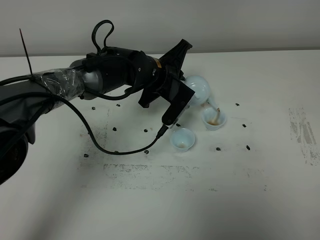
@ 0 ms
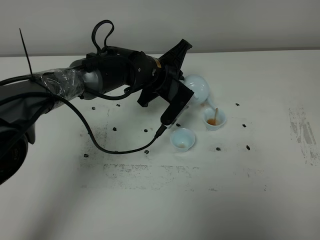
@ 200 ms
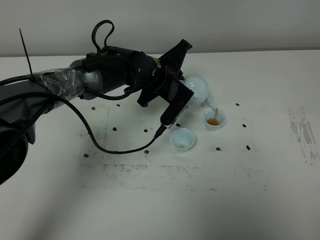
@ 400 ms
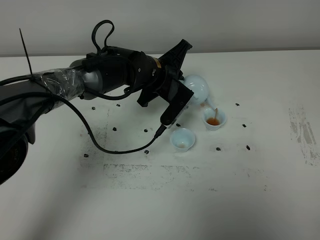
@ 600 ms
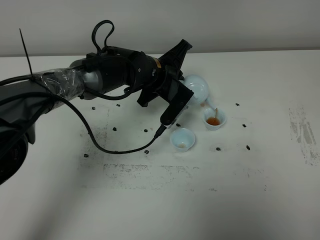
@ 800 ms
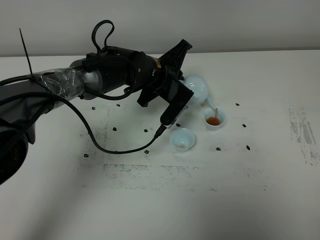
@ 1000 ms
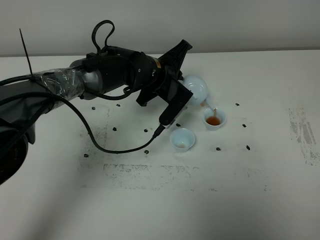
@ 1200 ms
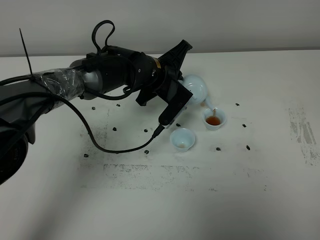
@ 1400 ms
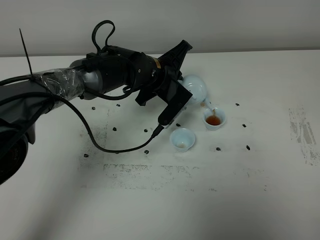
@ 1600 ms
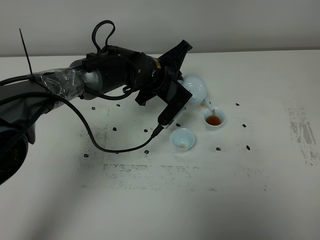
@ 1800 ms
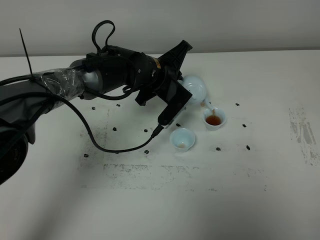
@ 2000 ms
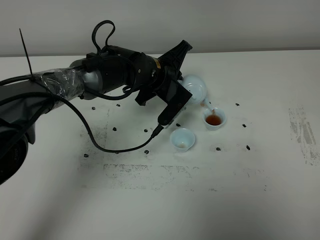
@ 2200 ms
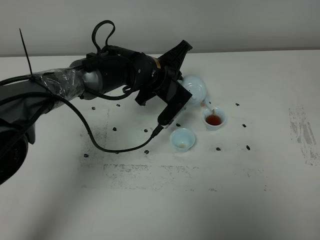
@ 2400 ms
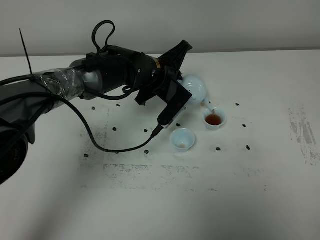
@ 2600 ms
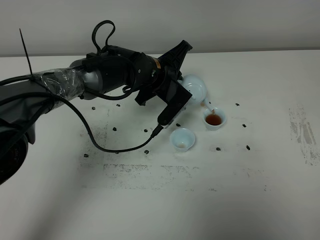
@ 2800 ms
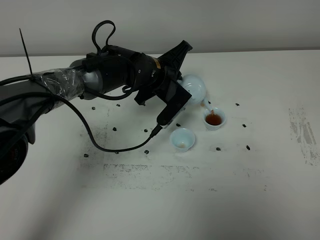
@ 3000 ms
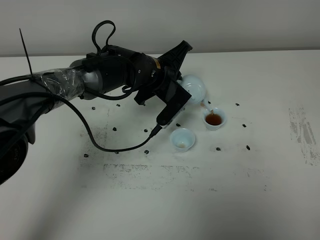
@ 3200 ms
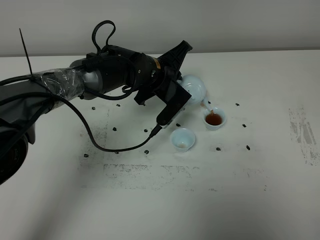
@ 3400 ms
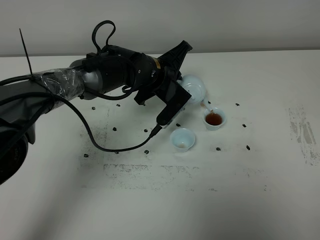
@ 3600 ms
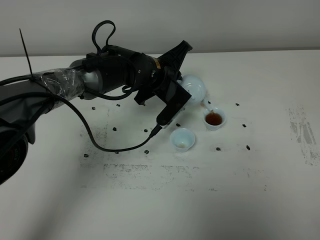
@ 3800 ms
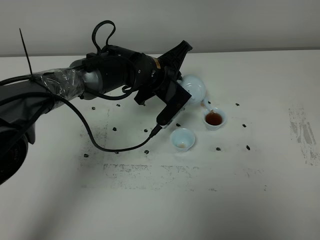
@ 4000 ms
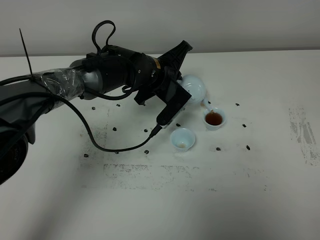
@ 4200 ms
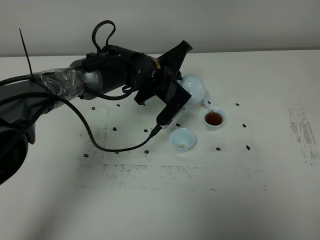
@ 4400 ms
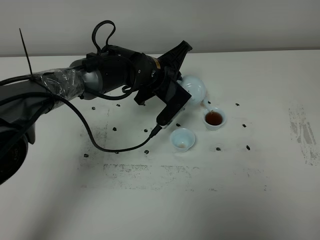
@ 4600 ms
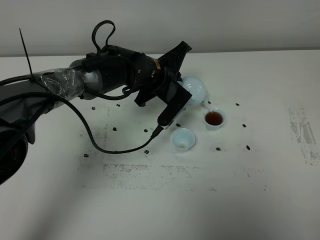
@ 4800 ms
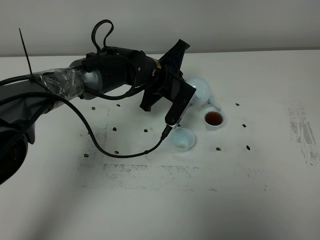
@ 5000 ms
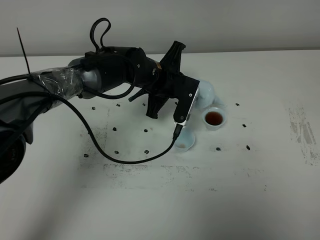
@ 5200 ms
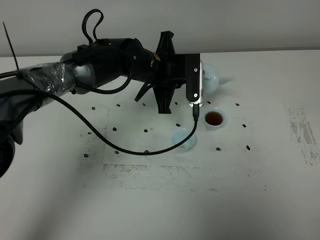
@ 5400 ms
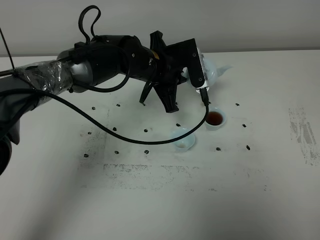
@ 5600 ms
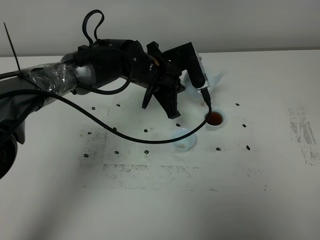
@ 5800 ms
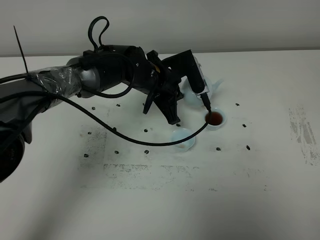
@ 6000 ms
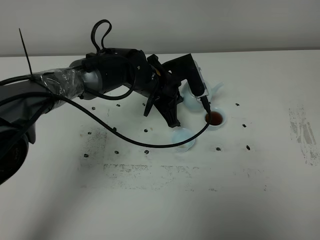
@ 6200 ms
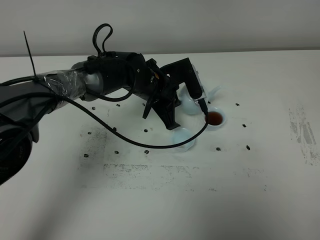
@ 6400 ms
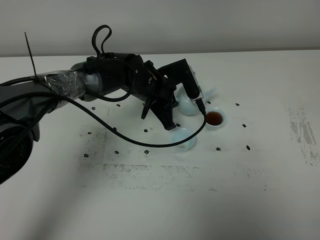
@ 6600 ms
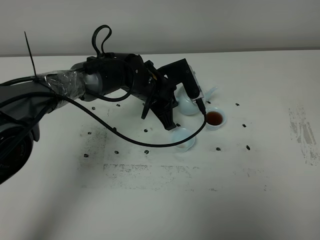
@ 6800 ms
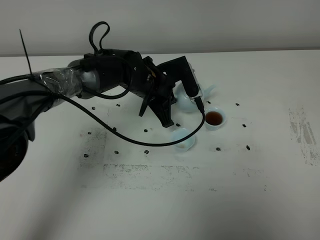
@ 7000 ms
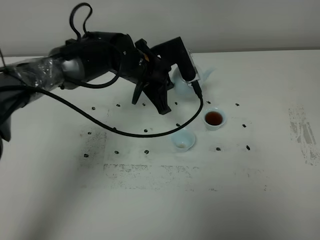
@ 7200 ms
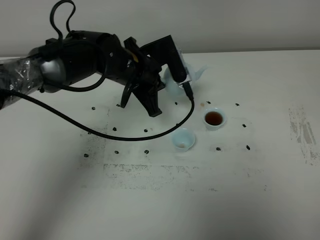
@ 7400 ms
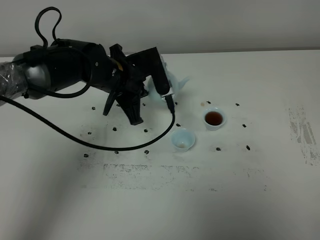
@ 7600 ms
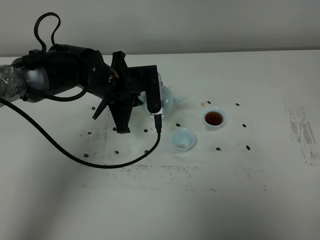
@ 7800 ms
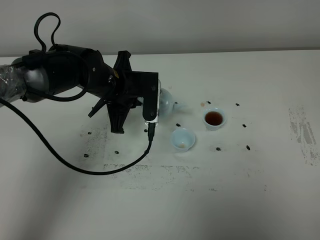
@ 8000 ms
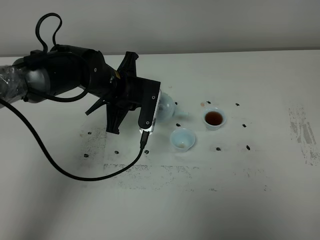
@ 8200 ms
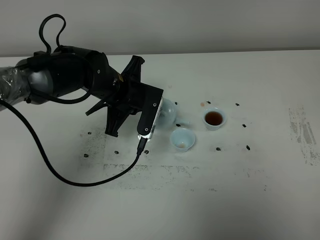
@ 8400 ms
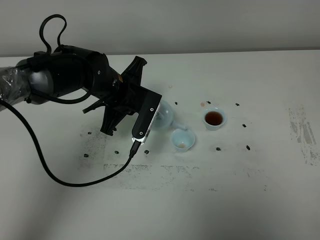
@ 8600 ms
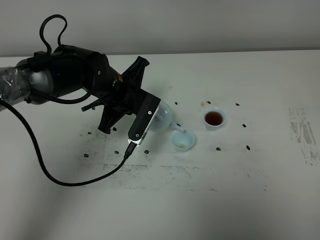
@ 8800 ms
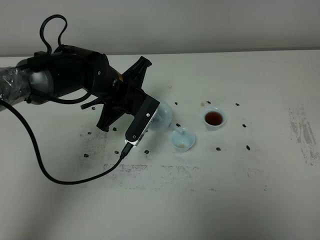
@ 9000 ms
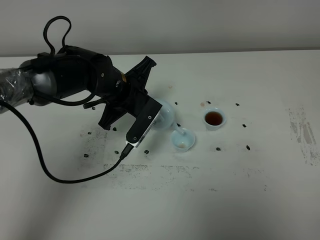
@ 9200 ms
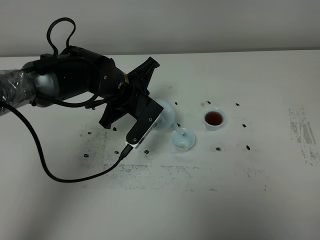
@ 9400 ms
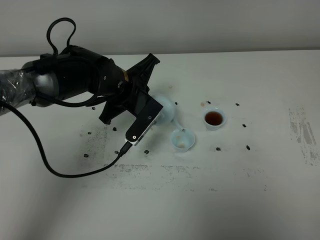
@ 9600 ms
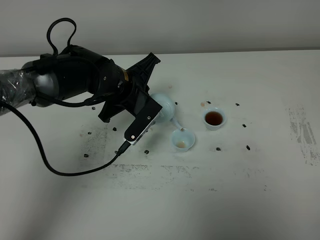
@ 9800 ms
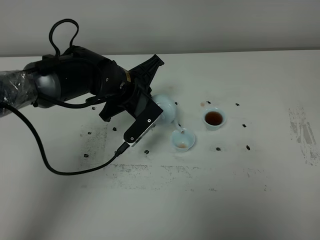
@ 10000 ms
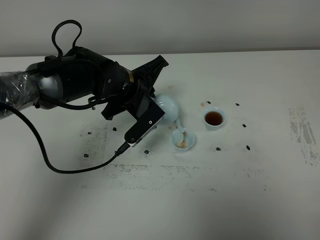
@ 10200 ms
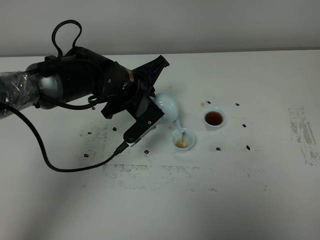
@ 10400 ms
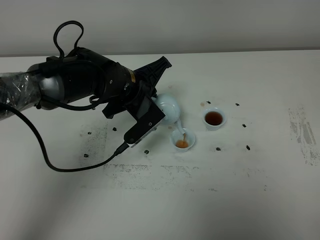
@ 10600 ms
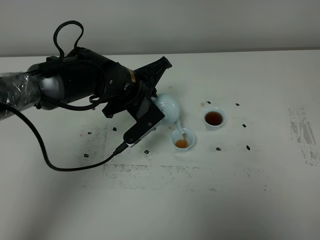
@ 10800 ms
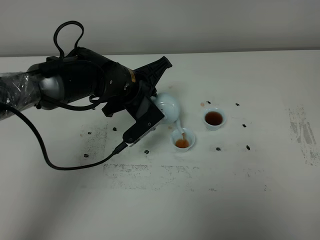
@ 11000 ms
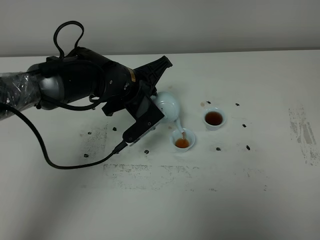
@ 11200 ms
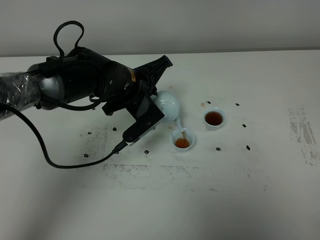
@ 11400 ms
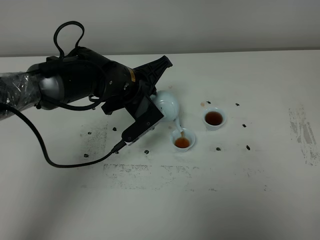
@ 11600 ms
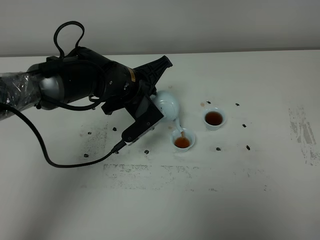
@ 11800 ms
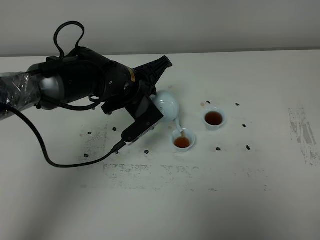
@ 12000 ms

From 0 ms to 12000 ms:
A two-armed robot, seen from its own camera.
Task of the whole recording: grasp the blue porcelain teapot and pour the tea into the two blue porcelain teacups one by one, put the blue porcelain teapot back in its original place.
Step, from 0 ms to 5200 ms: Pour tea into the teacup with the left gripper.
From 0 ms to 1600 ms: Neither gripper changes place.
From 1600 ms to 4400 ms: Both grippers stay put.
From 6000 ms to 7600 ms: The left gripper moves to the left, some 5 cm.
From 9000 ms to 10400 ms: The grippers make only small movements.
From 10400 ms to 12000 ms: There are only small adjustments of the grippers.

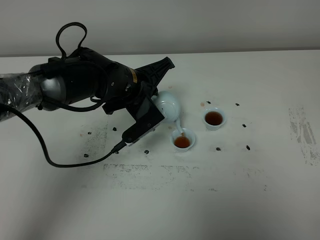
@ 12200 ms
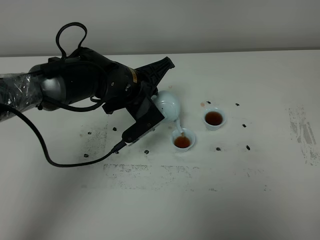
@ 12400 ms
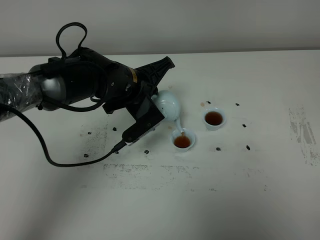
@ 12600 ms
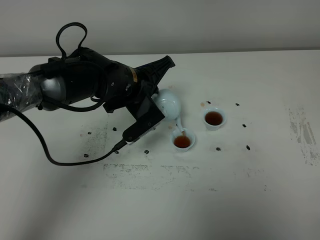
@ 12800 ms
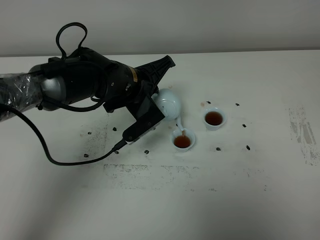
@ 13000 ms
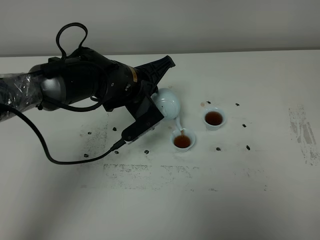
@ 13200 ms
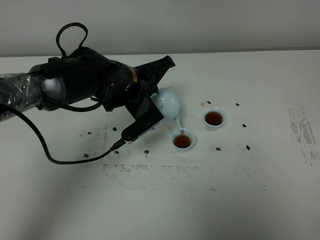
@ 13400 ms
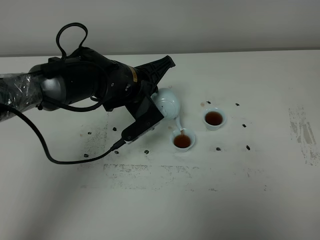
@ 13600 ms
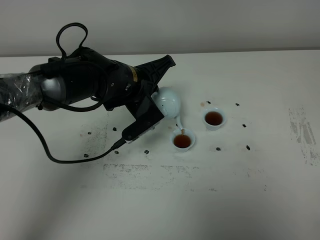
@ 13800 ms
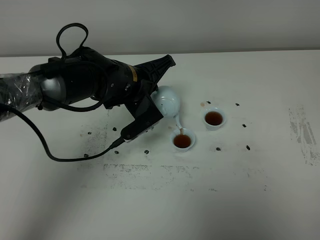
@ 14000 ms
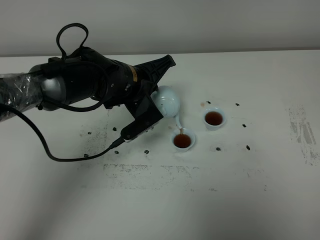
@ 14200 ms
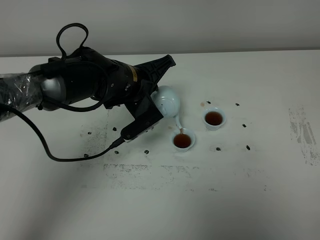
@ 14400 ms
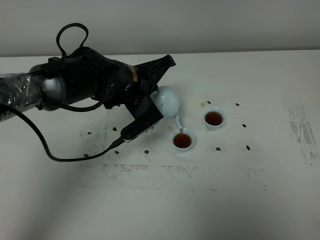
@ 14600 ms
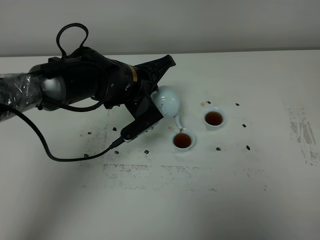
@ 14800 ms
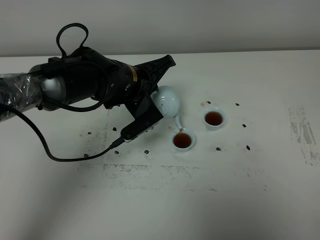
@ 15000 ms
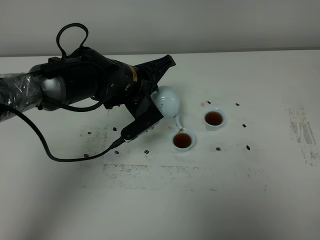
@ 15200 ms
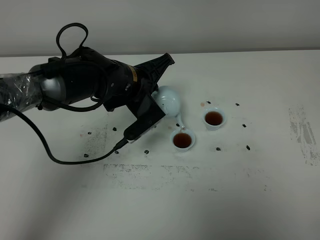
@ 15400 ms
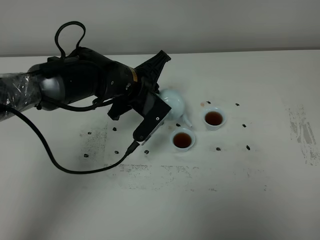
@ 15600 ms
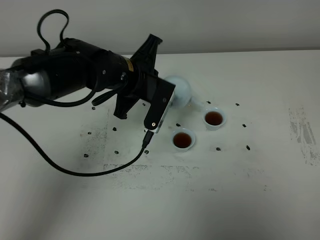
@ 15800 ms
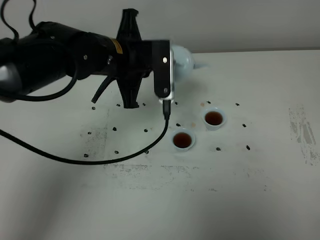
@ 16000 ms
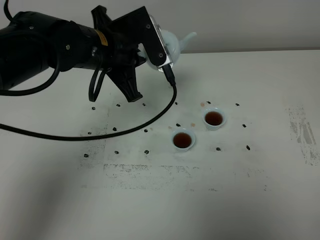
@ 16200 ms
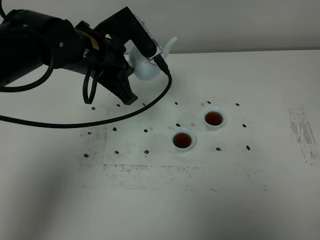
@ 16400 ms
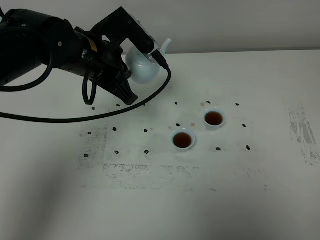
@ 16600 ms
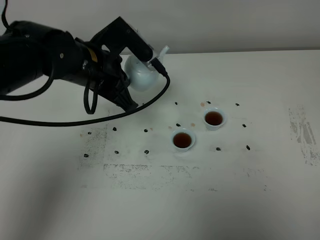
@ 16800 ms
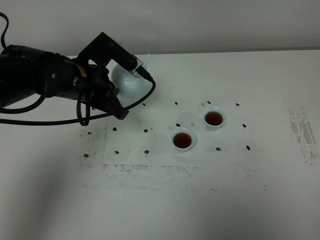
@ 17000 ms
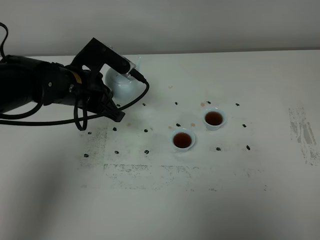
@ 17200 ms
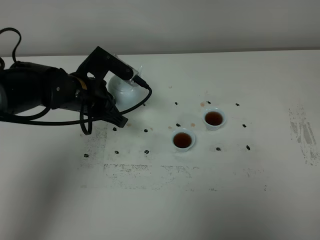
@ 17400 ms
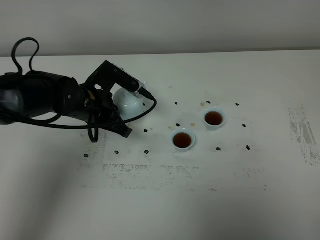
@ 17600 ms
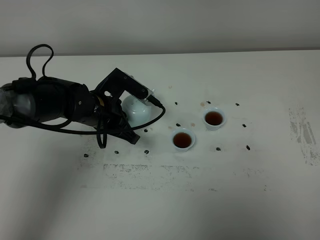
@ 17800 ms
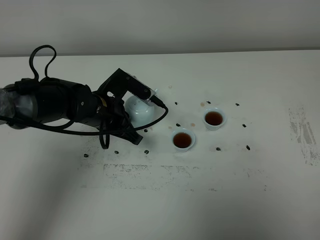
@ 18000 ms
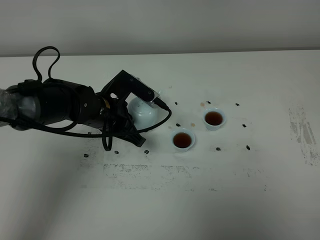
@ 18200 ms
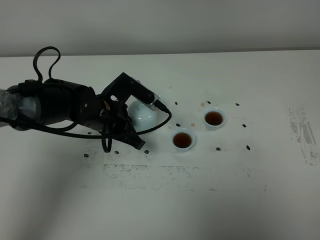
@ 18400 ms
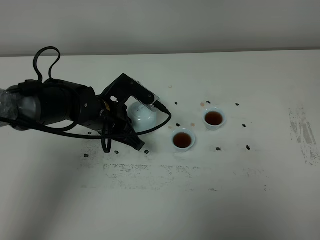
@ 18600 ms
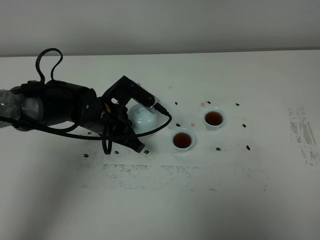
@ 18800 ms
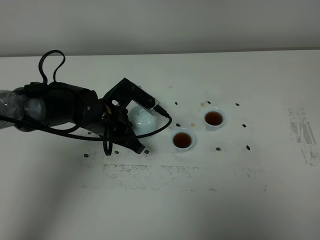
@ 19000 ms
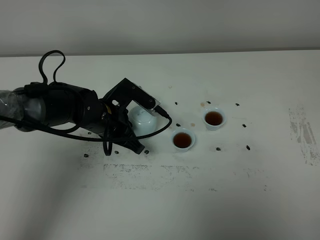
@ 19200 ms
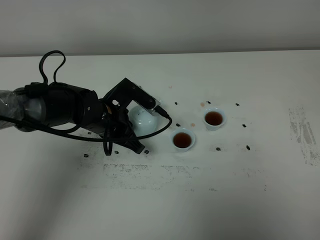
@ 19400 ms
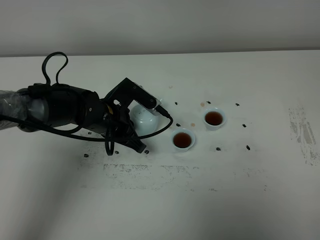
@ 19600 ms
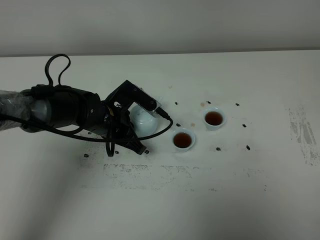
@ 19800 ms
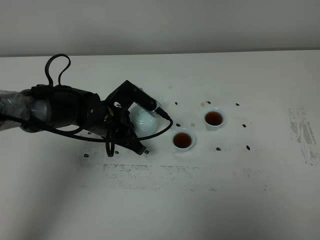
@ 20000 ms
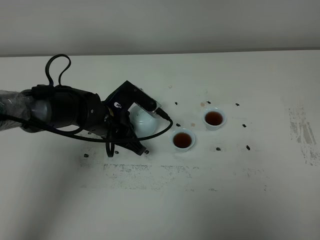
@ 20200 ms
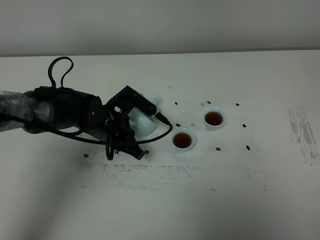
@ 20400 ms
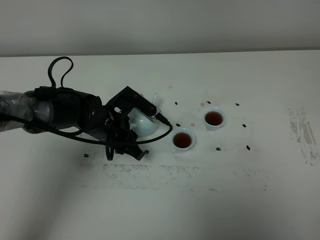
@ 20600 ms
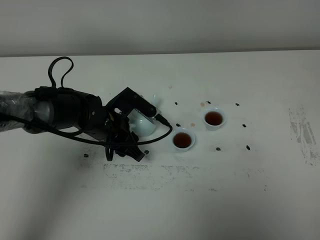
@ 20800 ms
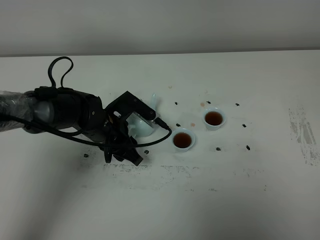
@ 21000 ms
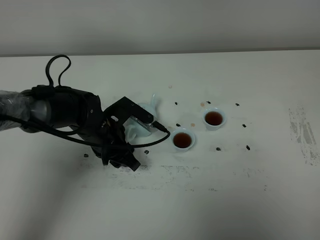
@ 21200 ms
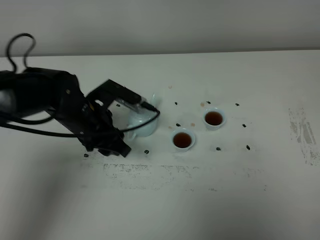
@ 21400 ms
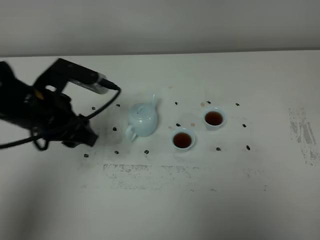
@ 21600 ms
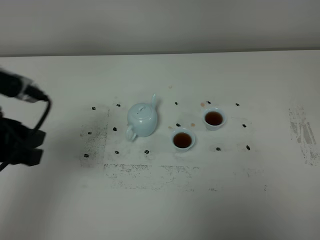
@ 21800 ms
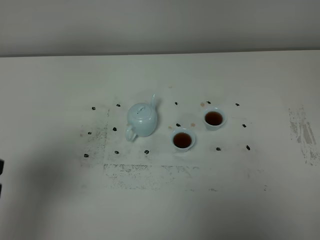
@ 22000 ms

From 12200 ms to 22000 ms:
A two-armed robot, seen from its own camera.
Task of the whole recording: grasp the blue porcelain teapot and pour the tea into the two blue porcelain teacups one by one, put the blue porcelain teapot back in its original place.
Step, from 12200 ms to 15600 ms: Pour tea into the teacup with the left gripper.
From 12200 ms to 15000 ms: Both grippers stay about where they are.
From 15000 ms to 16400 ms: The left gripper is displaced upward by some 10 cm.
From 16400 ms to 17800 ms: The left gripper is displaced downward by approximately 15 cm.
From 17800 ms to 19200 ms: The grippers make only small movements.
From 19200 ms to 20600 ms: The left gripper opens.
From 20600 ms to 22000 ms: The left gripper moves backward, upward and to the left, roughly 35 cm.
